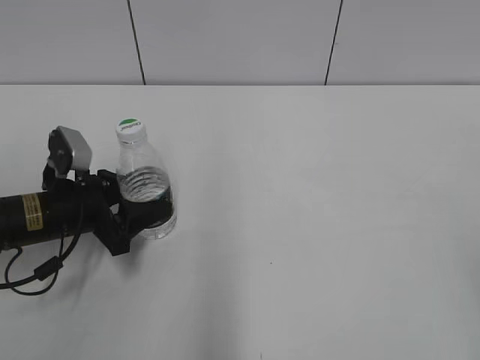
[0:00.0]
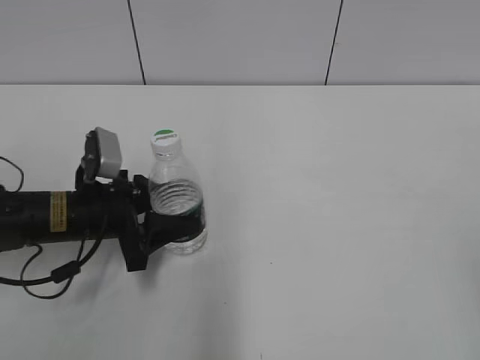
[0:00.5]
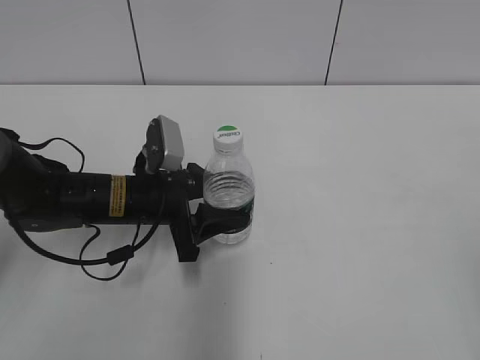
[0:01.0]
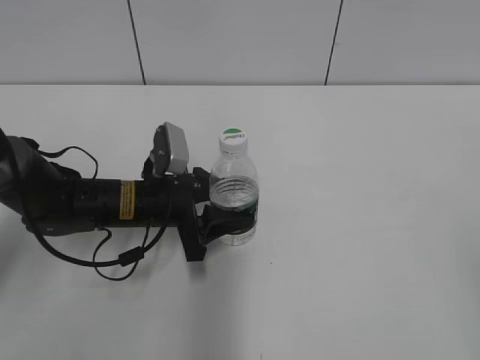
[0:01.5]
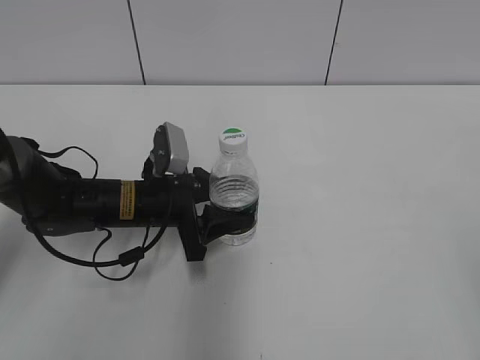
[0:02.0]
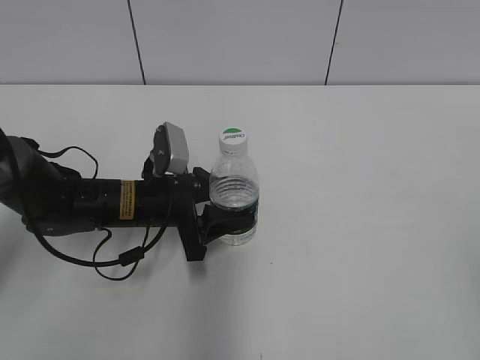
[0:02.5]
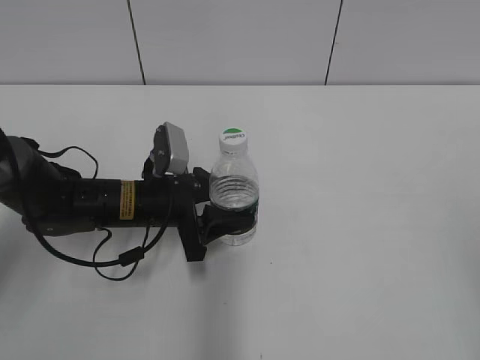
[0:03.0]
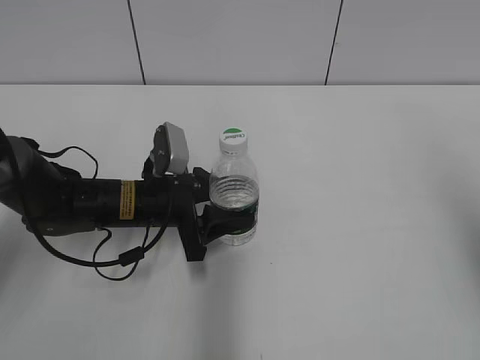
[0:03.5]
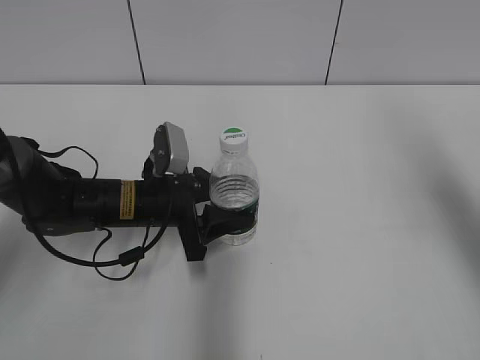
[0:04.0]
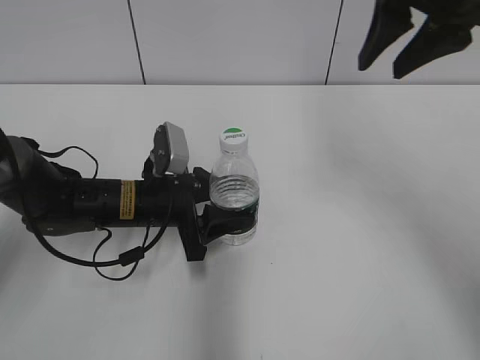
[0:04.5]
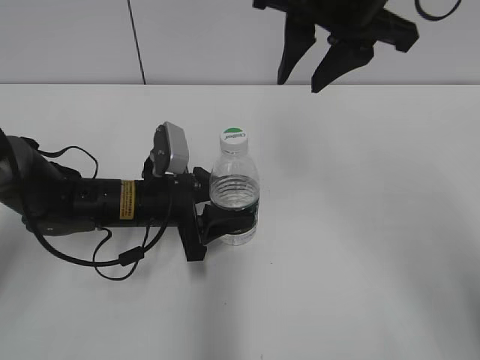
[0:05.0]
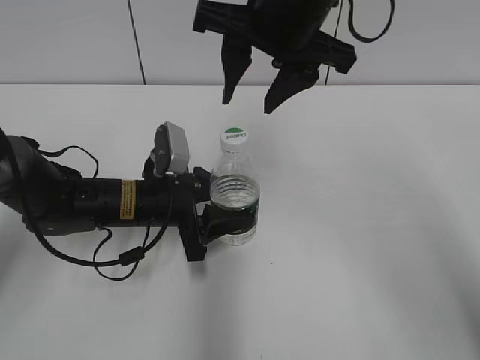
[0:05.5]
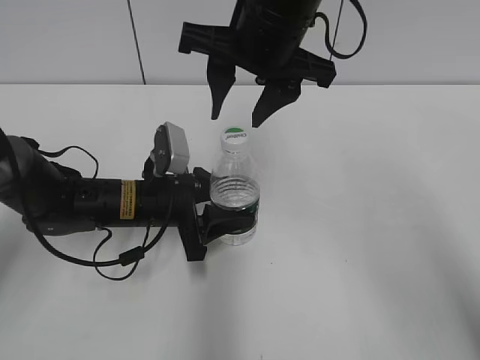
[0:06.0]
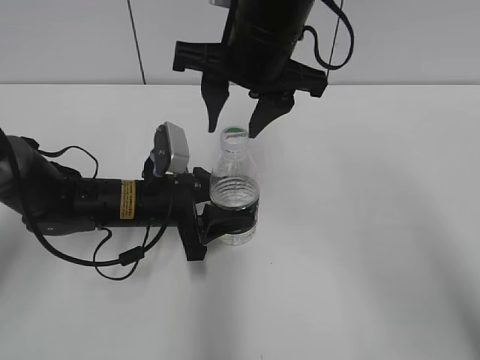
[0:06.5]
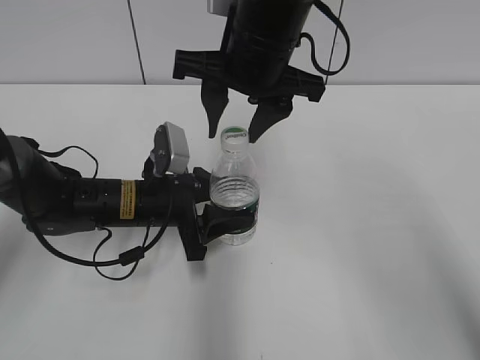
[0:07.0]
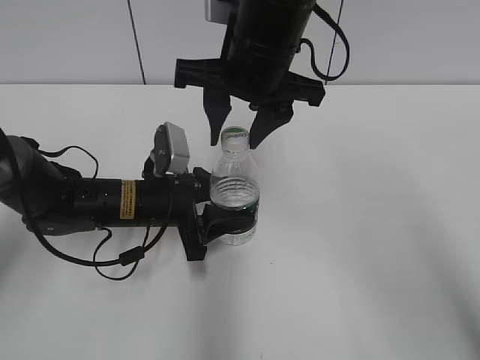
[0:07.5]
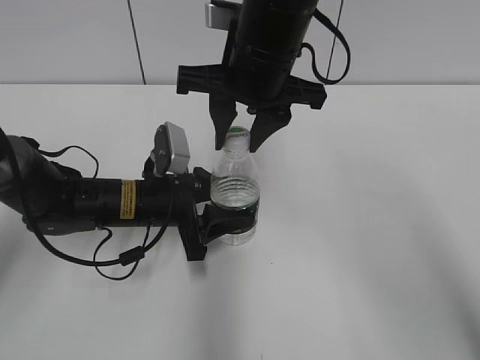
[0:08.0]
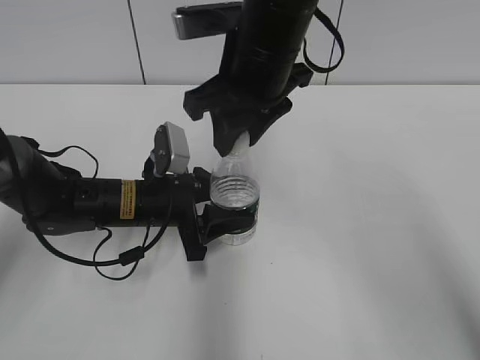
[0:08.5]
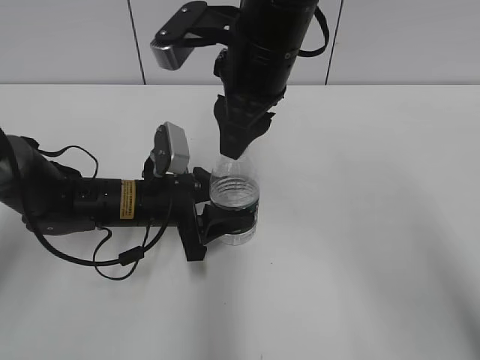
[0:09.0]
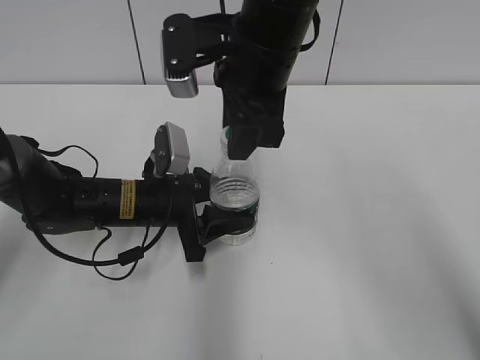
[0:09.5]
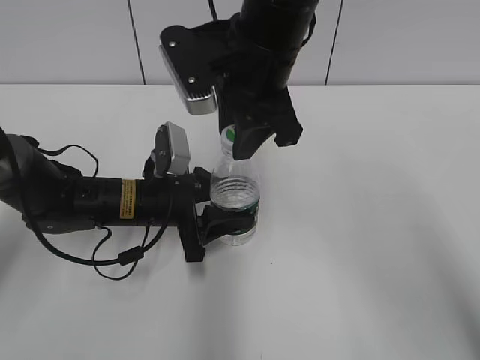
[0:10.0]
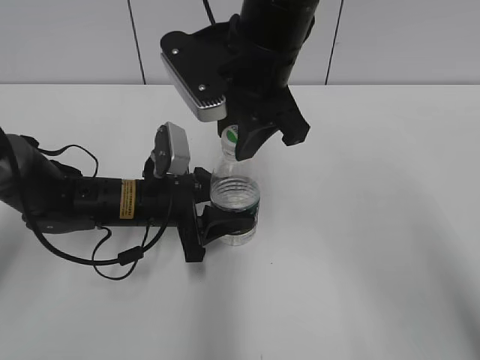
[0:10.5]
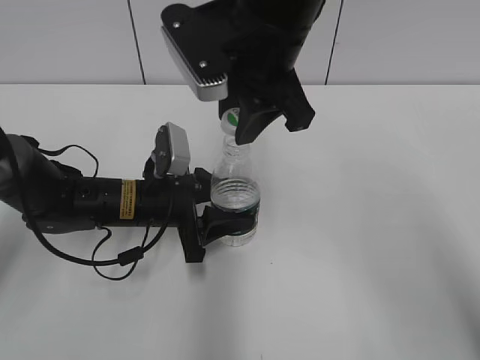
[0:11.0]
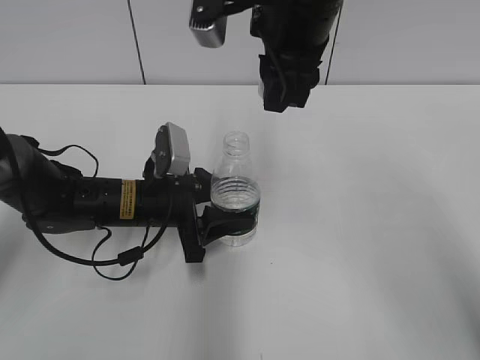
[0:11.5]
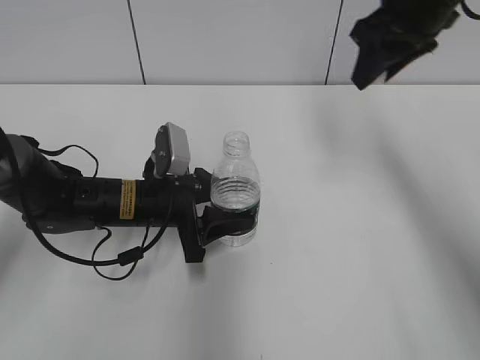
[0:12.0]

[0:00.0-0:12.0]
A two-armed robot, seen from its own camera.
Step, 0:00.0 to 0:01.5: Lift the bottle and move it to the center of the table with the left gripper.
Step, 0:02.0 to 0:11.0: Unscrew the bottle cap with the right gripper while holding the bottle with the left gripper.
0:00.0 to 0:02.0: The left gripper heads to the right, covering roughly 10 cm.
0:02.0 to 0:04.0: The right gripper heads forward, covering roughly 25 cm.
0:04.0 to 0:06.0: The right gripper heads to the left, covering roughly 25 cm.
0:06.0 to 0:08.0: The right gripper closes.
0:10.0 to 0:12.0: The right gripper shifts about 15 cm to the right and forward.

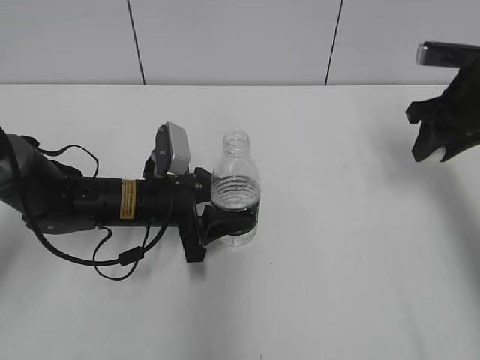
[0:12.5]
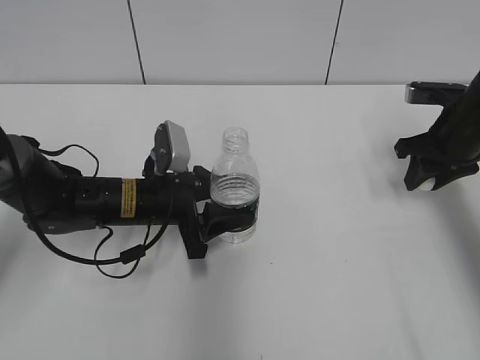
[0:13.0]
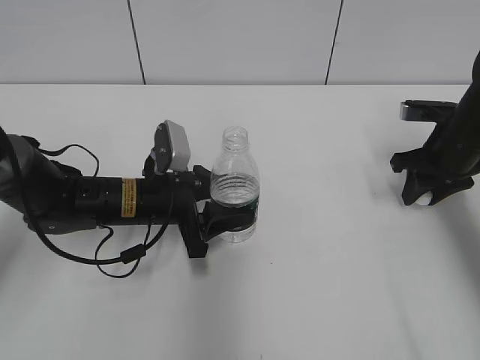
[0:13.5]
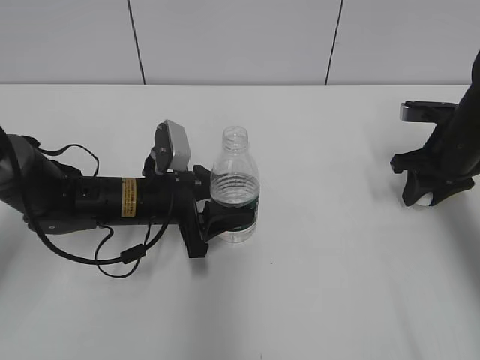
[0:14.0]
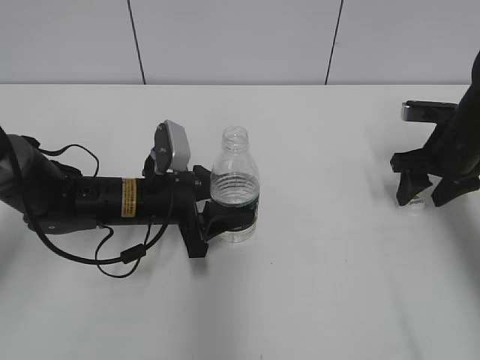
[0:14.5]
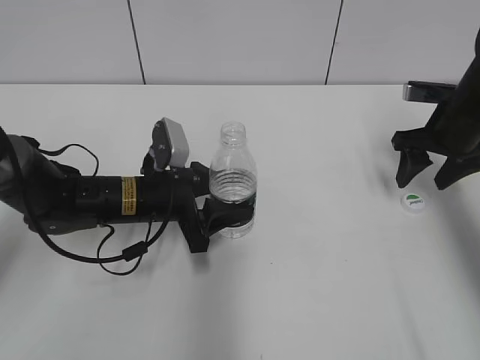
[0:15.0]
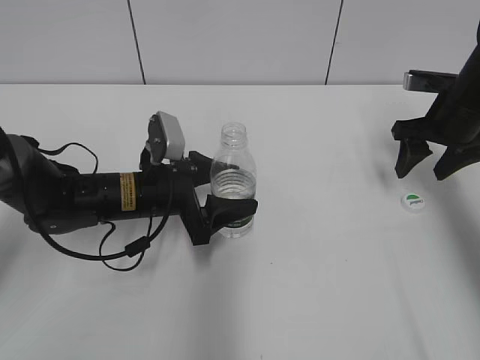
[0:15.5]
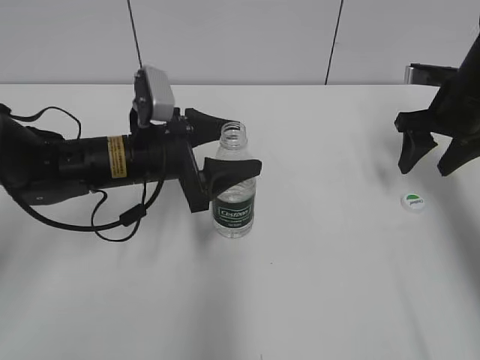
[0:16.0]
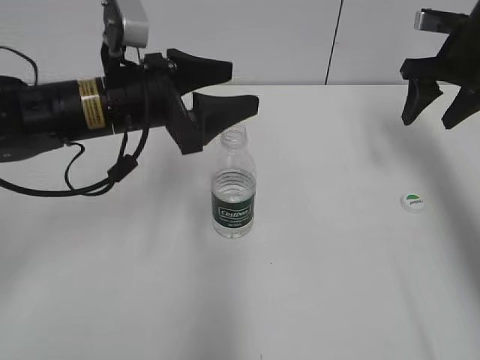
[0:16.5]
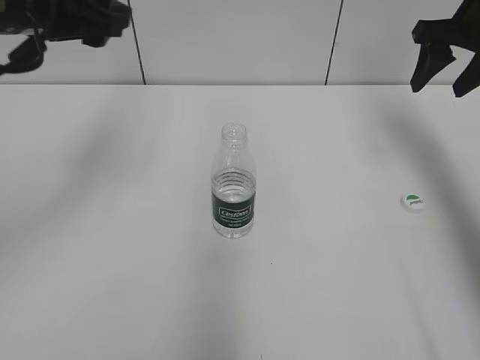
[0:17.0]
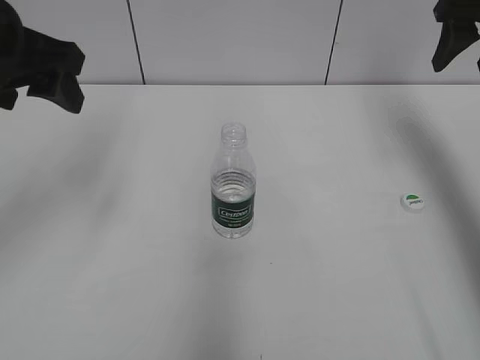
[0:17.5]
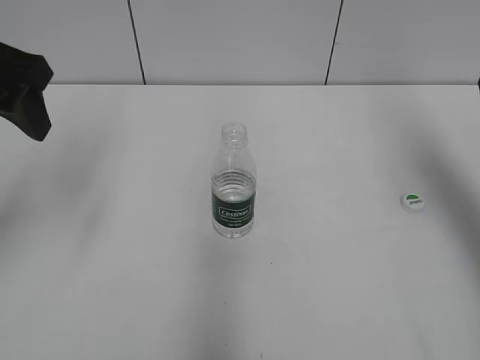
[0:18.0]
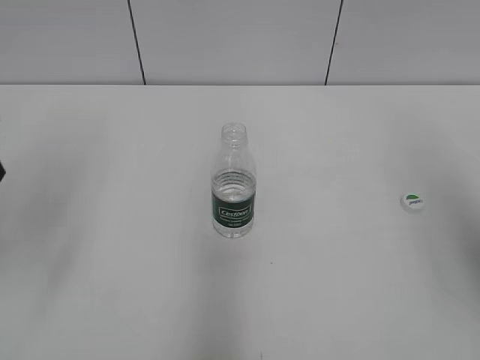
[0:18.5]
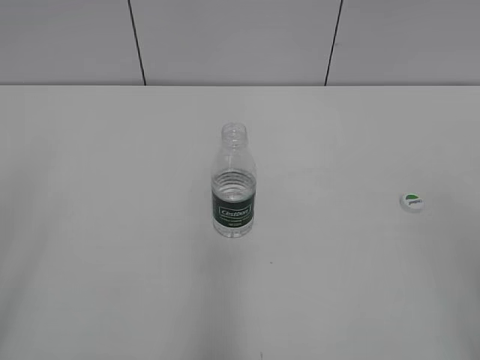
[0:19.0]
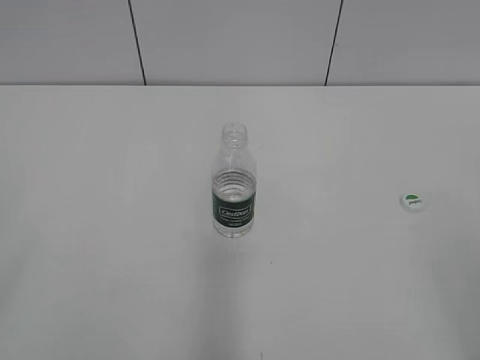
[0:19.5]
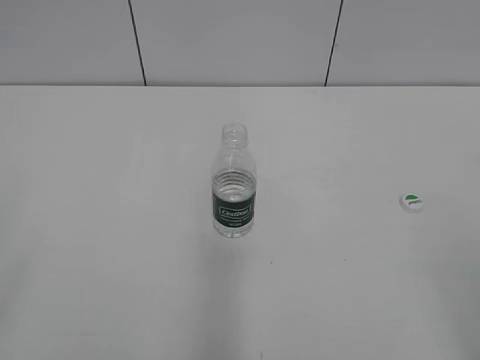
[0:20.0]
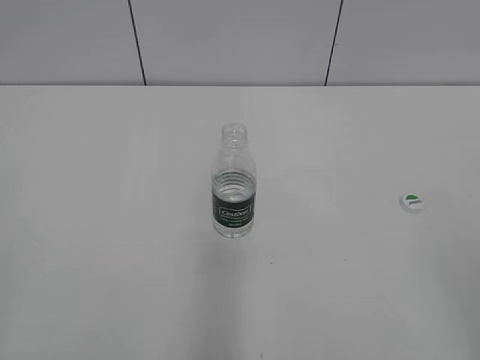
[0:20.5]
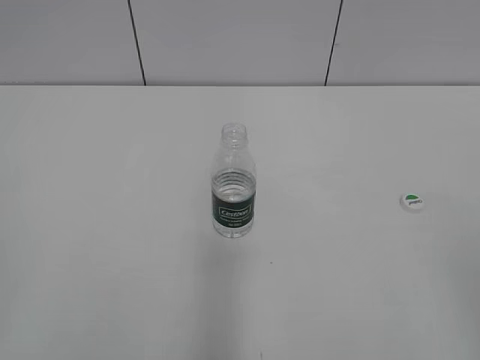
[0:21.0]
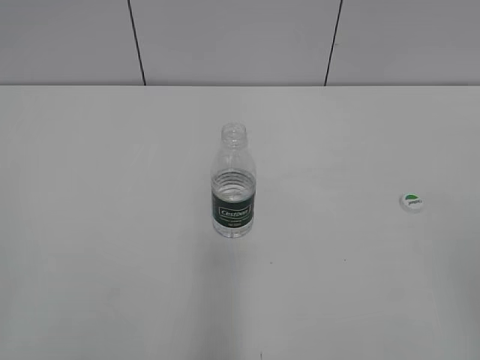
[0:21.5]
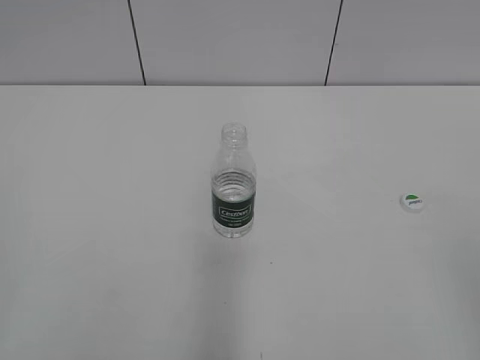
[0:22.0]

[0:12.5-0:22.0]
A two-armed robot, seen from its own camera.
Step, 0:12.5 to 0:14.5: Place the bottle cap on the table with the right gripper.
Step, 0:15.0 to 0:16.0: Place the bottle on the table with the left gripper.
0:12.5 to 0:14.5: The right gripper goes approximately 10 cm downward, and opens up.
0:14.5 to 0:16.5: The two grippers go roughly 10 cm upward. The left gripper opens.
0:16.5 to 0:18.0: The right gripper travels backward and upward by approximately 15 cm, while the left gripper travels upward and to the left by some 15 cm.
0:18.0 to 0:20.0: Both grippers move backward, approximately 30 cm.

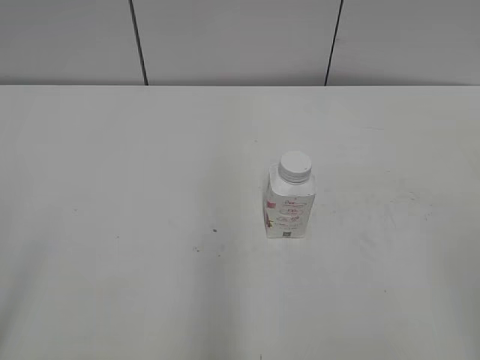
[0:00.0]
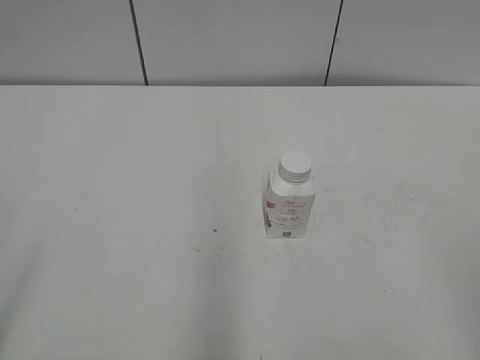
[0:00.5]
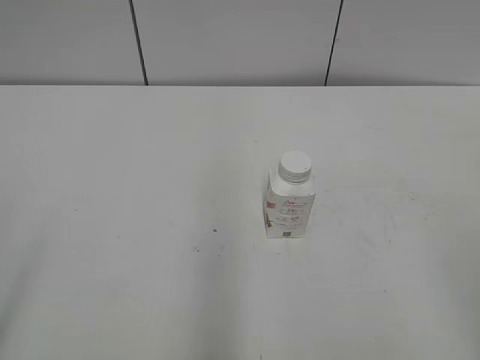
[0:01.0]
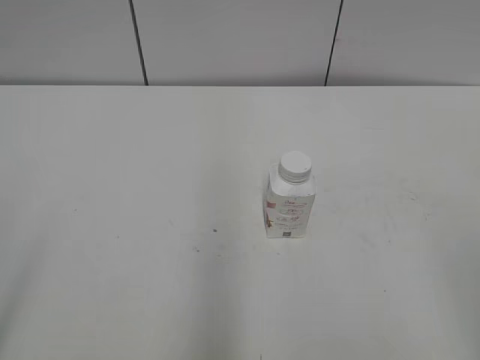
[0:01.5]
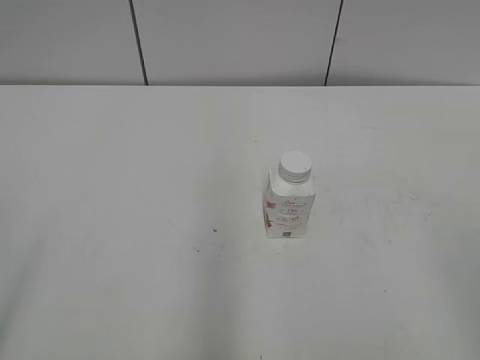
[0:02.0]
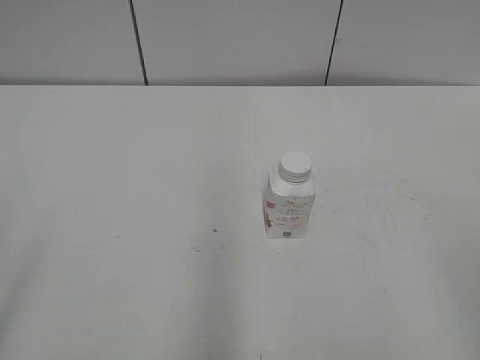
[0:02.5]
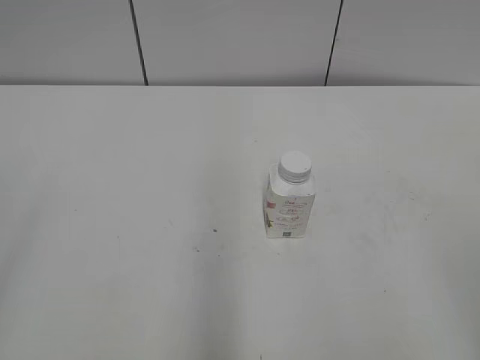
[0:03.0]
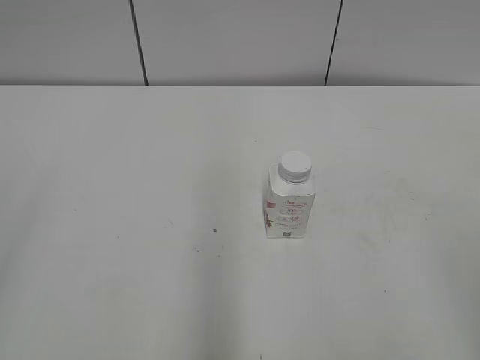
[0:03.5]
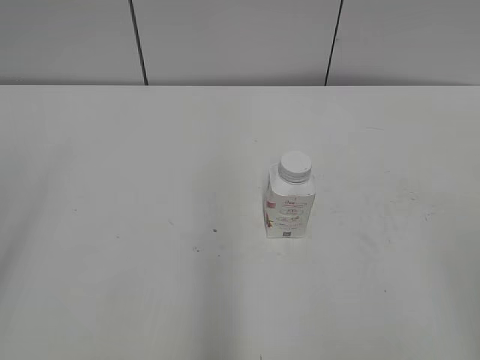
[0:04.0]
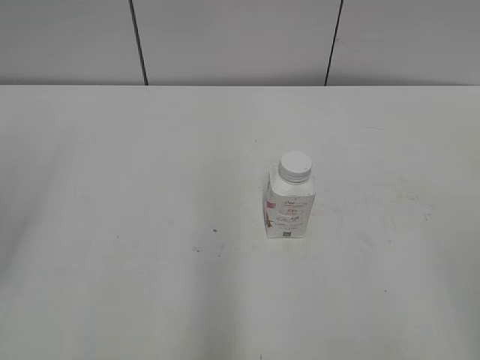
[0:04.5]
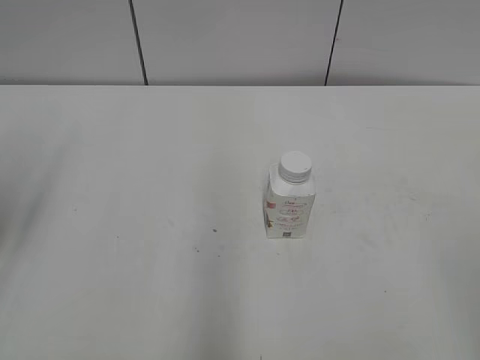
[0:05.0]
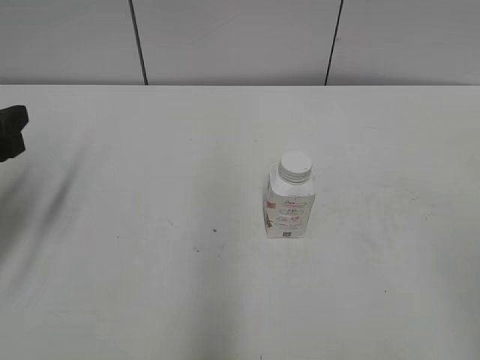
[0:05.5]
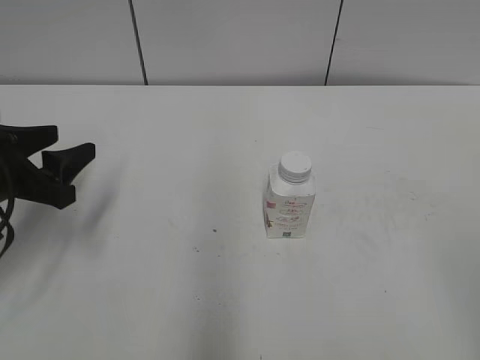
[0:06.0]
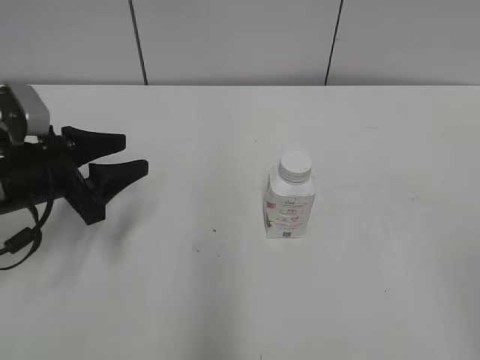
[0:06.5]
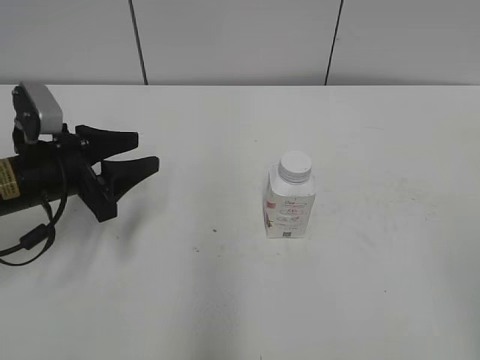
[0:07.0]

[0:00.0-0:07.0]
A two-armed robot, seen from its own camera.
0:05.0 to 0:07.0: The left gripper travels downward, forward and to the right by some 20 cm, and closes up.
